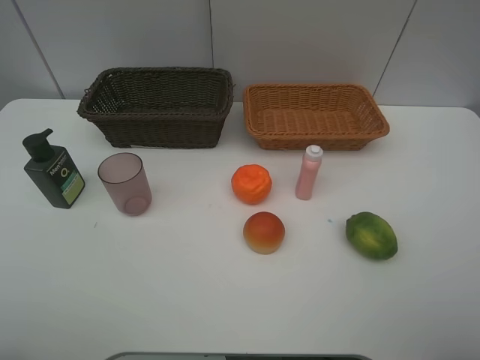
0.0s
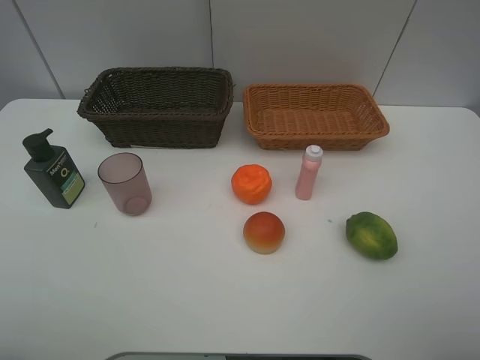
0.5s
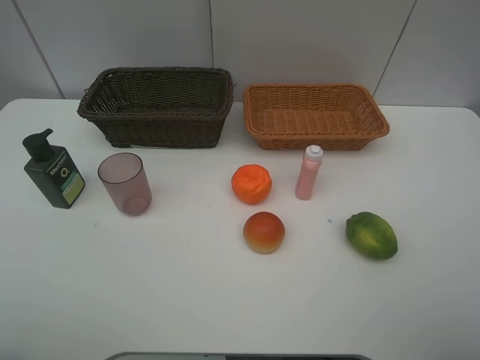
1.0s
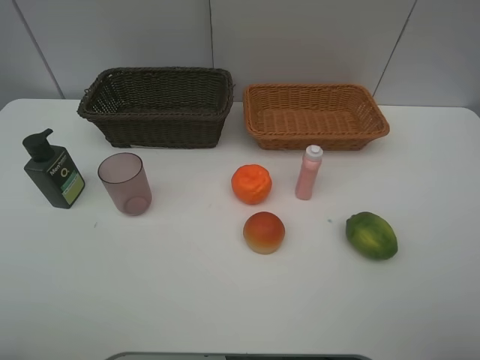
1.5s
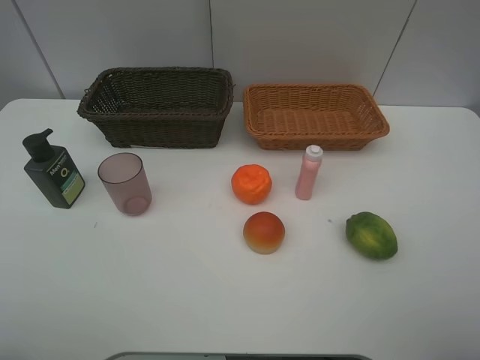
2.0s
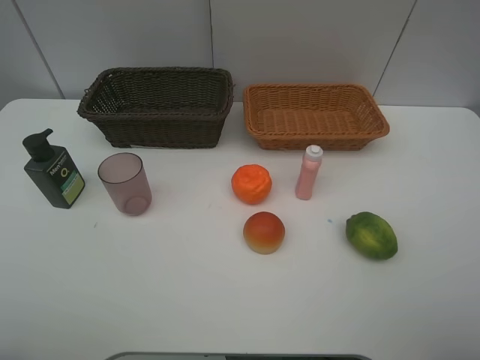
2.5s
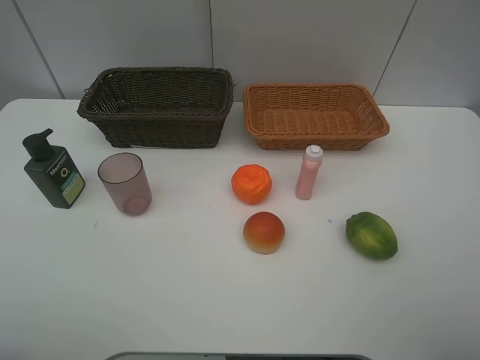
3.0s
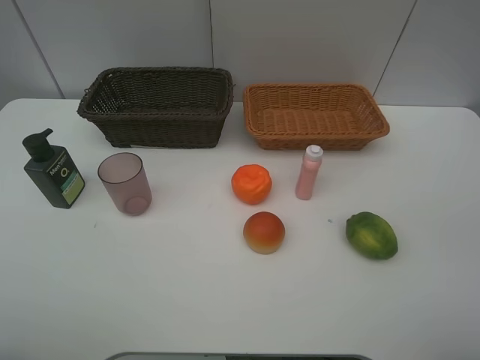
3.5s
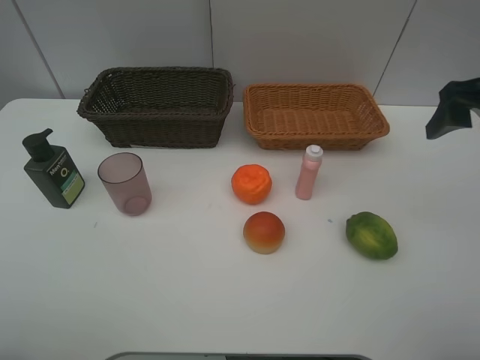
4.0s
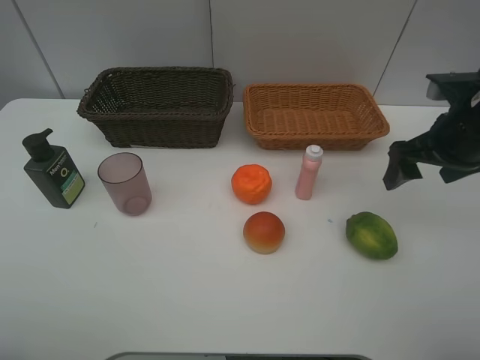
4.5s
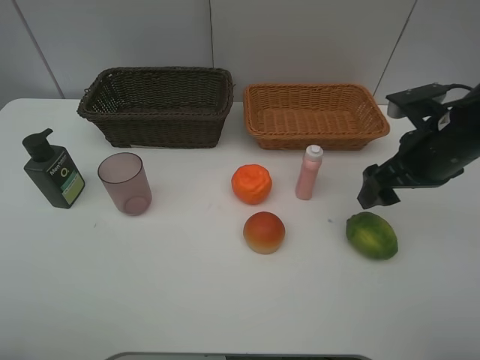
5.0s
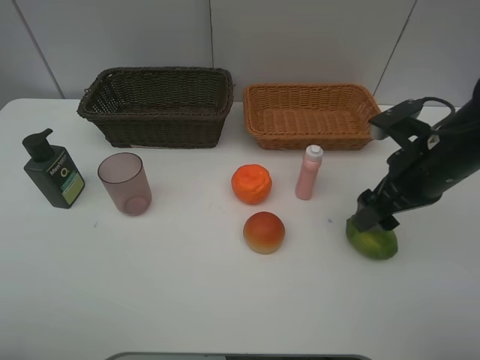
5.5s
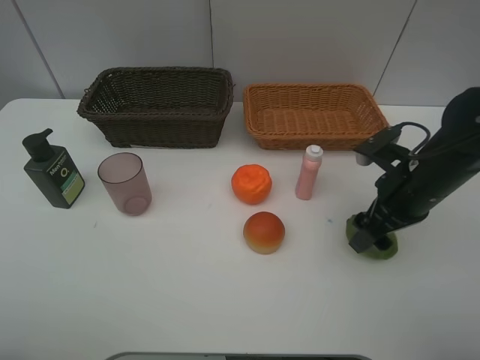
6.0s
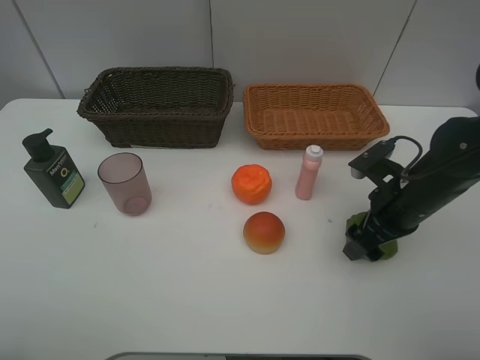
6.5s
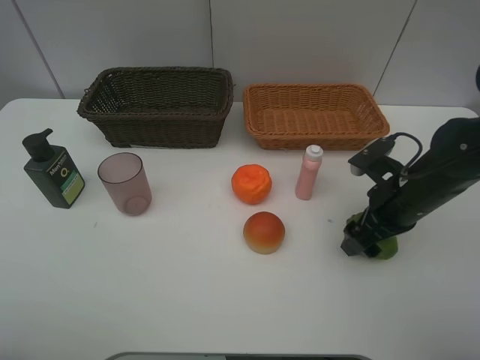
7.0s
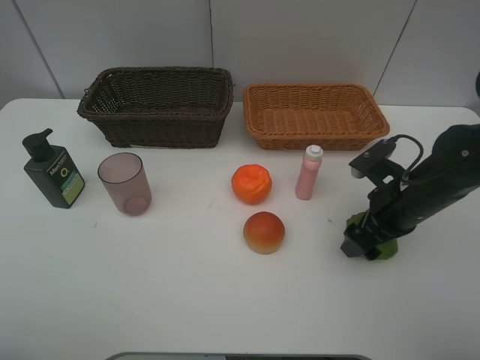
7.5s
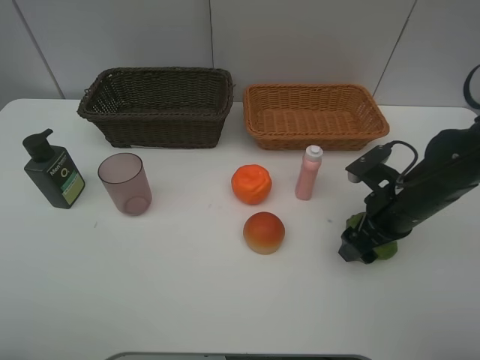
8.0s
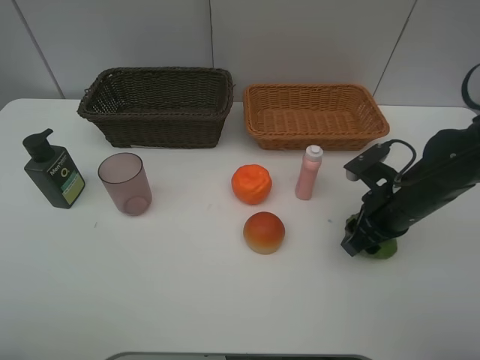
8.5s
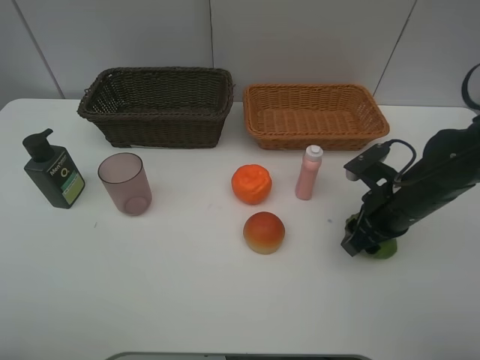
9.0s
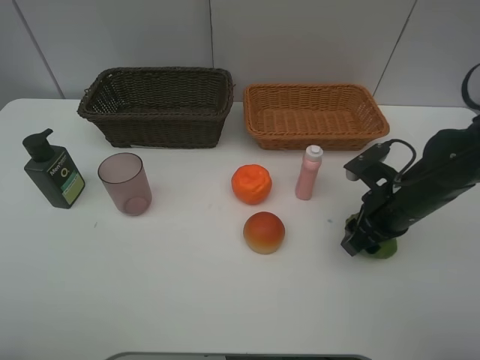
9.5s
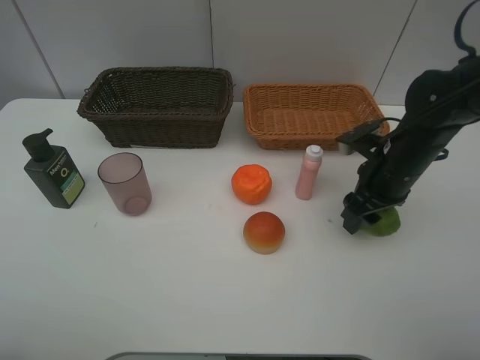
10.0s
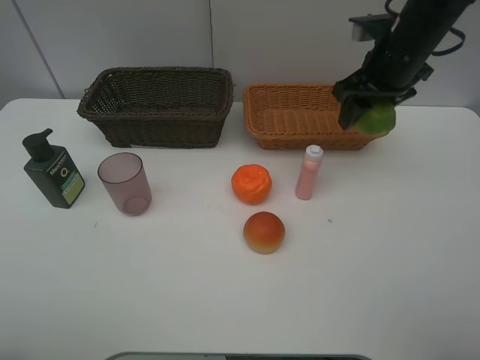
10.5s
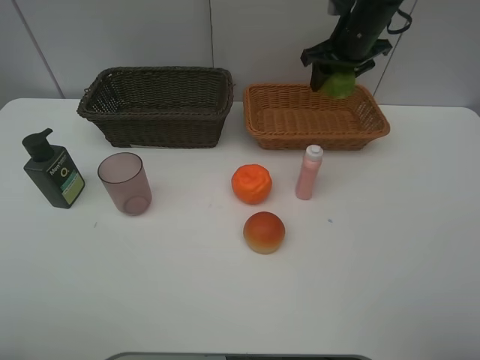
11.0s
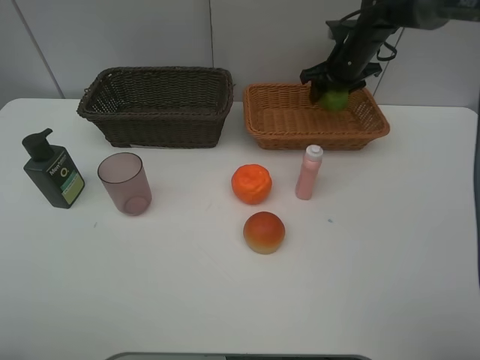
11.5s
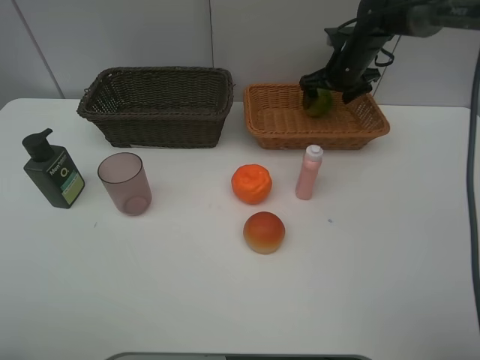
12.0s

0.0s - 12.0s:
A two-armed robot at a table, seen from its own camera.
Task of the whole recording: place multiple objects separately in different baskets.
0.0s - 2.0s: Both grippers stay put.
2.0s - 4.0s: The right gripper travels forward by roughly 25 cm.
4.0s - 6.0s: The right gripper shifts about 15 cm downward and to the left.
6.0s - 8.0s: There are only small adjustments of the grippers.
8.0s - 10.0s: The right gripper ends up some 5 cm from where it was, and closes its fingers.
10.0s - 12.0s: The right gripper is displaced forward by some 25 cm, and opens its fingers.

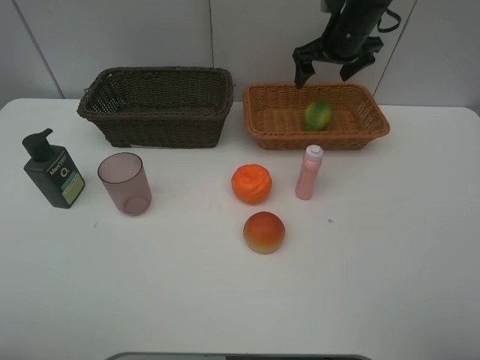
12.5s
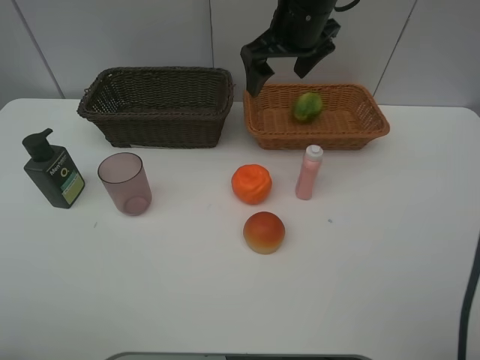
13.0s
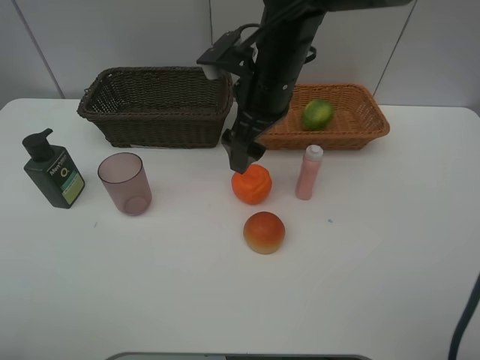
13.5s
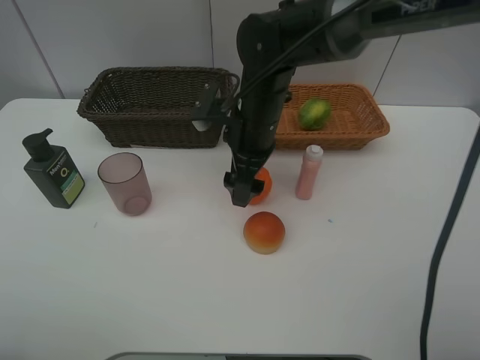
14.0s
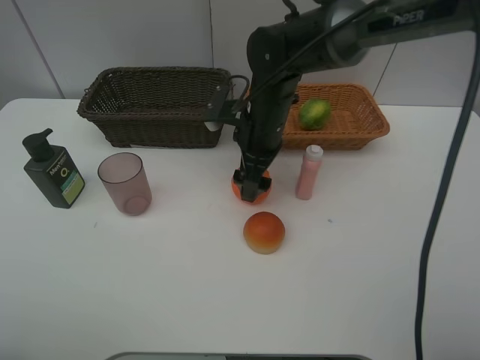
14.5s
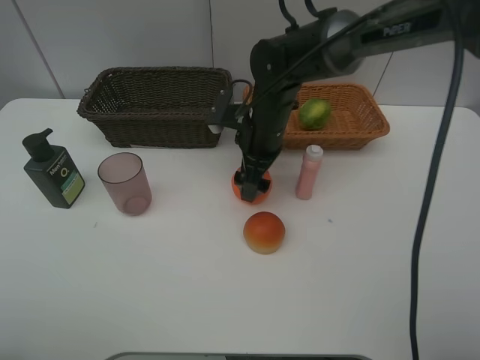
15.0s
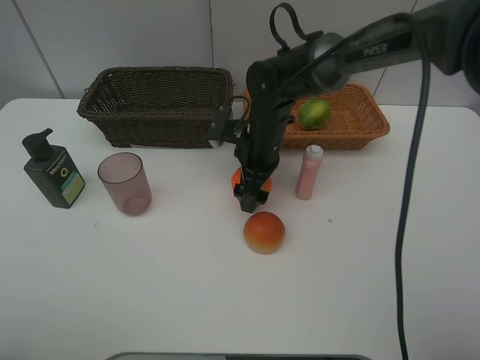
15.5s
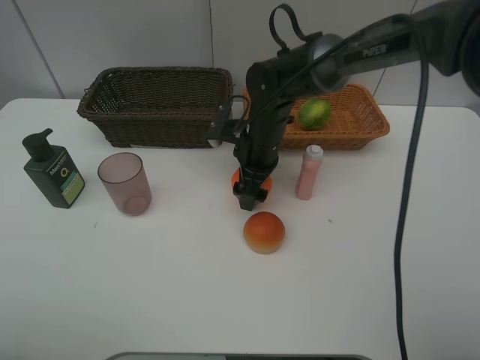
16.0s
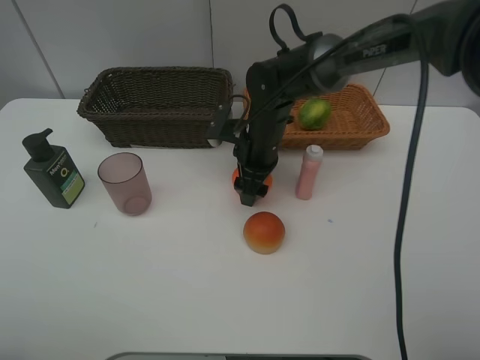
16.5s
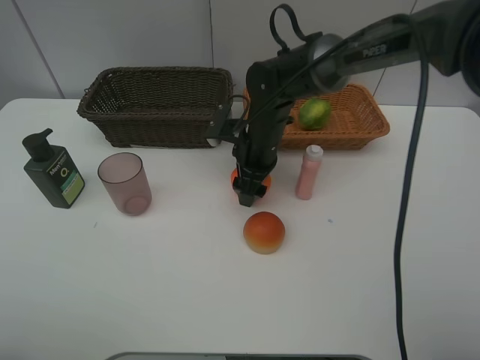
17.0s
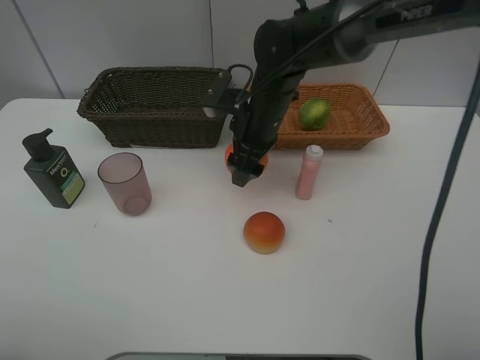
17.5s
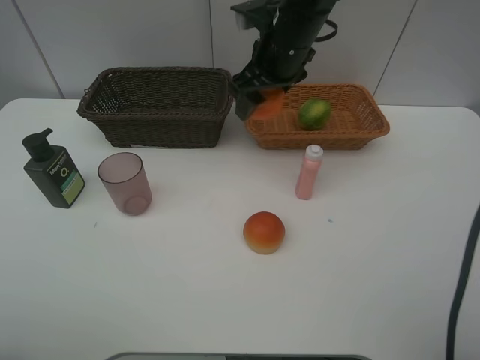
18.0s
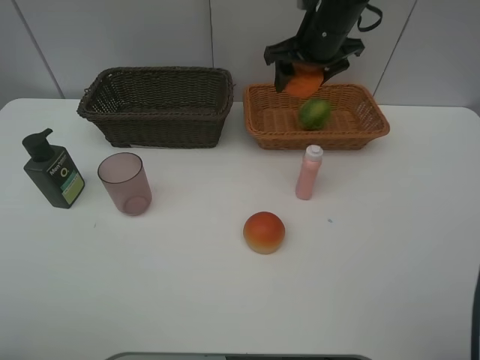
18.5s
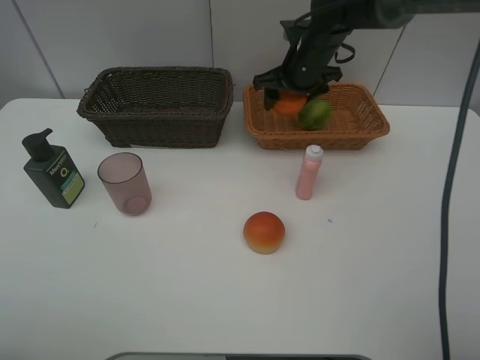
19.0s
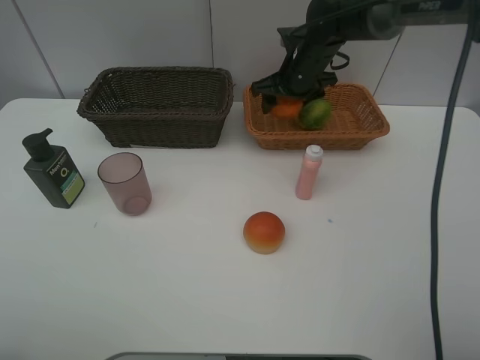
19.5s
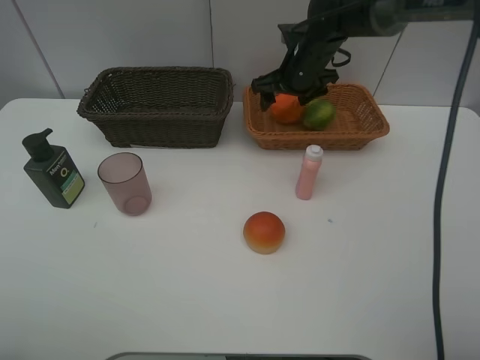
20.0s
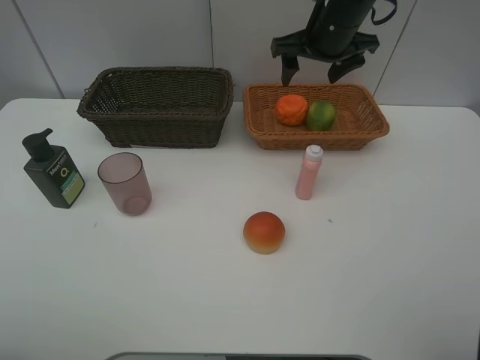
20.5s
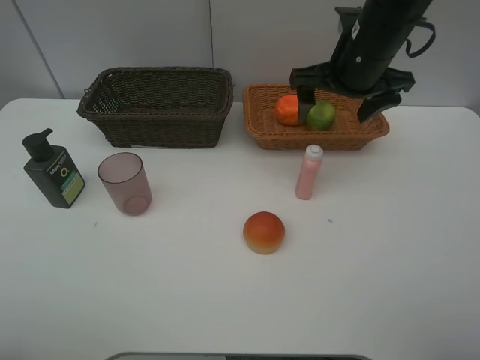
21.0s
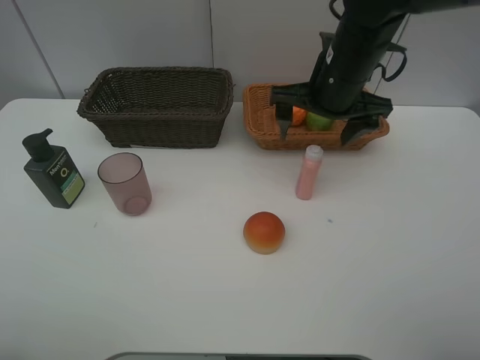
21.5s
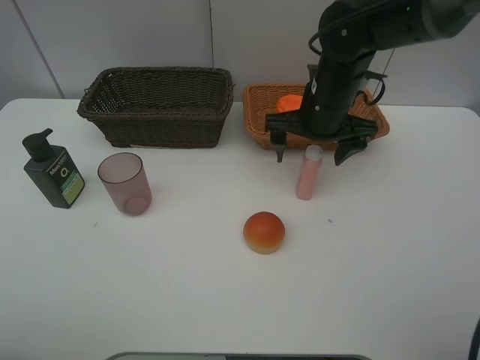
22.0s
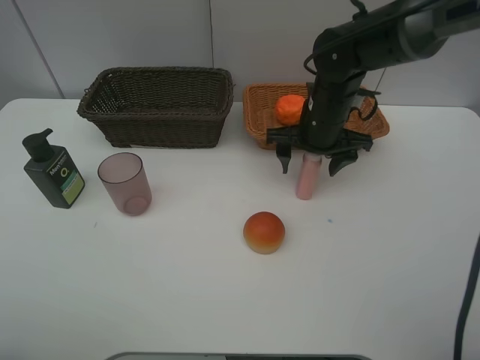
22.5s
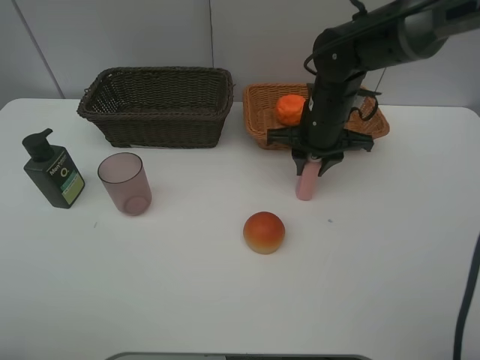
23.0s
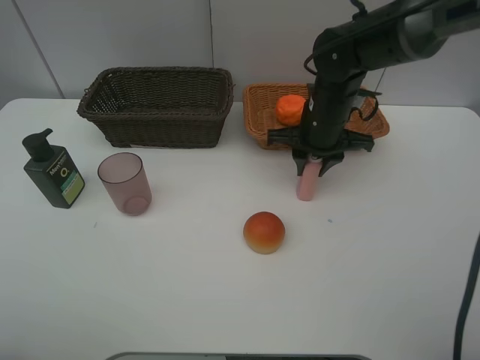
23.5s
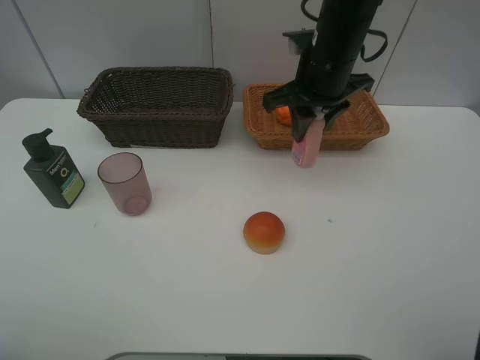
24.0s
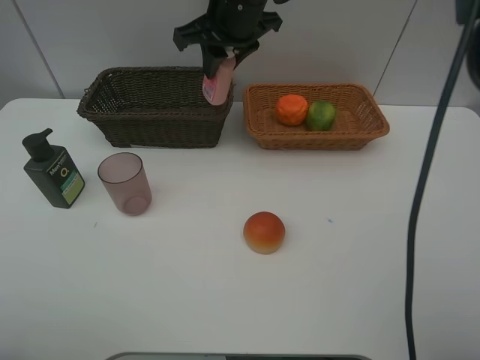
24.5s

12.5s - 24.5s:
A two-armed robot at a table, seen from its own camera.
Task of the whole recording: place multiple objects separately in different baskets.
12.5s - 14.5s: The right gripper goes about 20 cm to the left, backward and downward.
14.5s - 16.5s: The right gripper closes its fingers.
16.5s - 18.5s: The right gripper goes roughly 20 cm upward, to the right and forward.
18.5s - 20.5s: The right gripper moves roughly 5 cm downward and comes back.
20.5s - 22.5s: The right gripper is displaced downward and backward by roughly 10 cm.
22.5s - 24.5s: The right gripper moves upward and to the left, about 20 cm, and closes up.

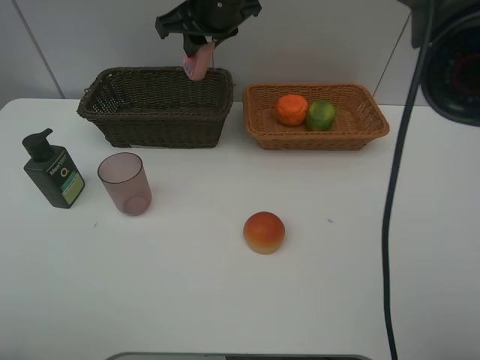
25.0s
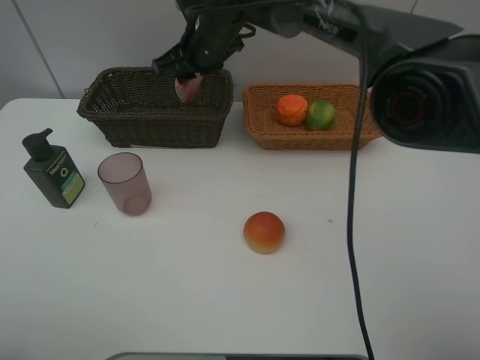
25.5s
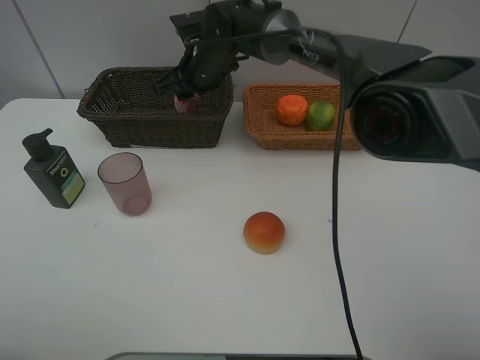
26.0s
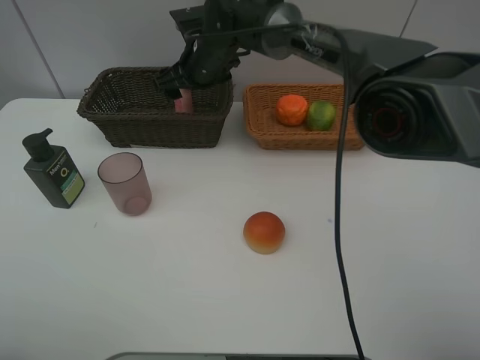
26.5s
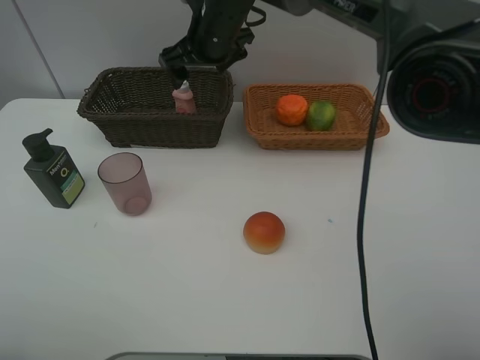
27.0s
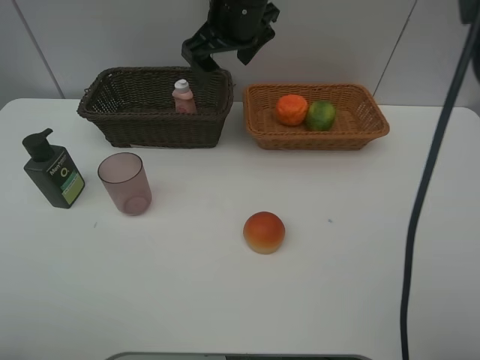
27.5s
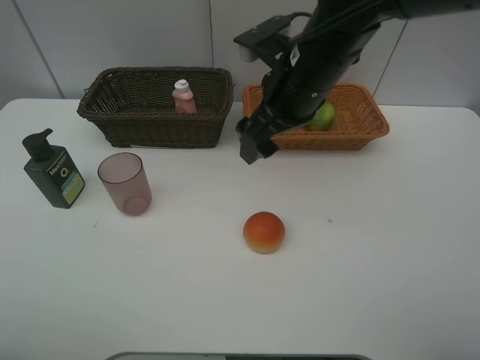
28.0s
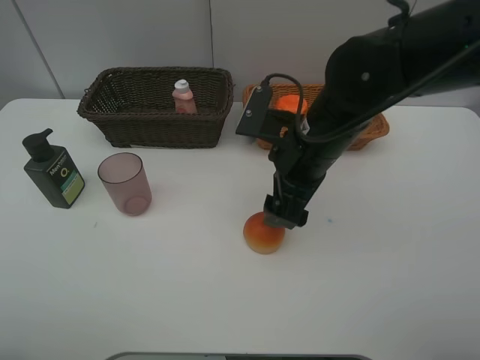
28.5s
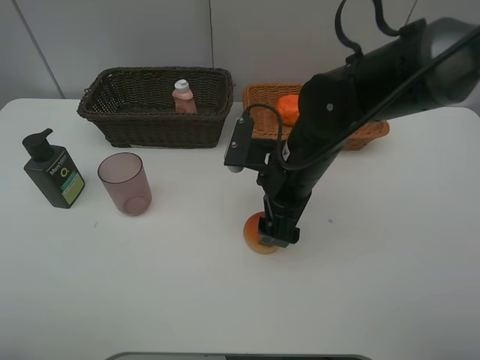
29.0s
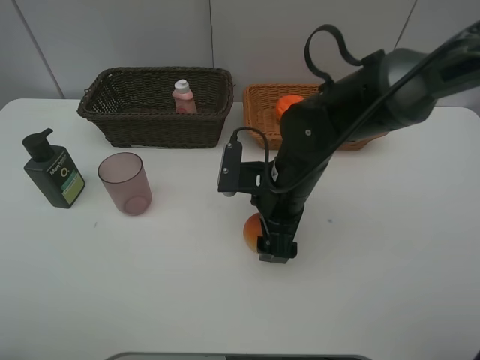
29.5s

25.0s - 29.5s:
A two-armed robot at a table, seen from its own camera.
Task of the whole recording: place multiple objects separately in different baskets.
25.0s - 27.0s: The right gripper opens its fingers.
27.0s - 29.5s: The right gripper goes some 25 cm backward, downward and to the right.
